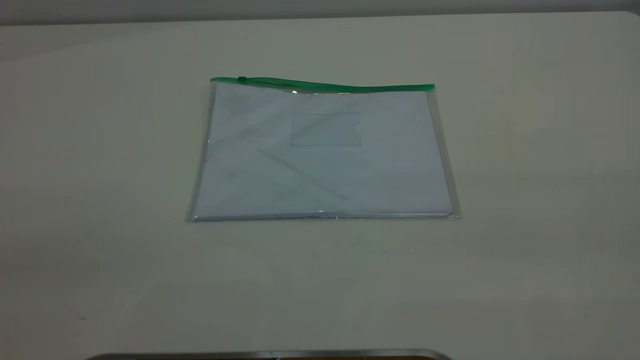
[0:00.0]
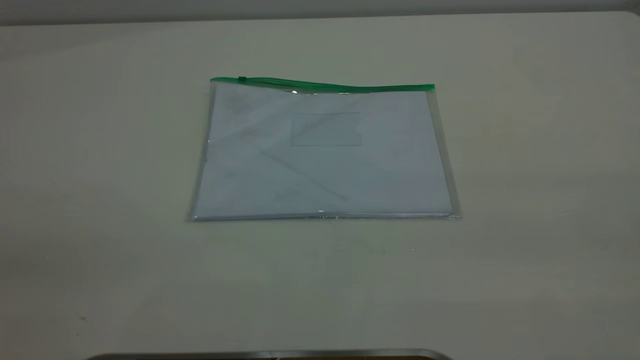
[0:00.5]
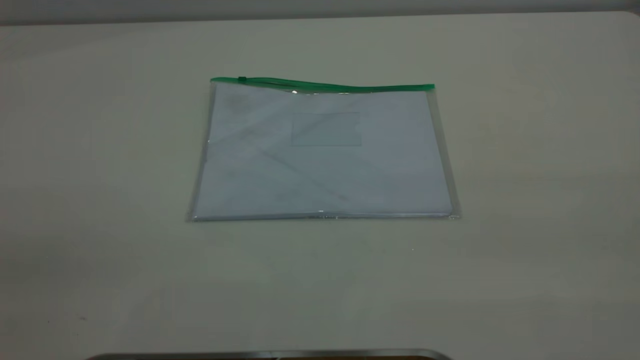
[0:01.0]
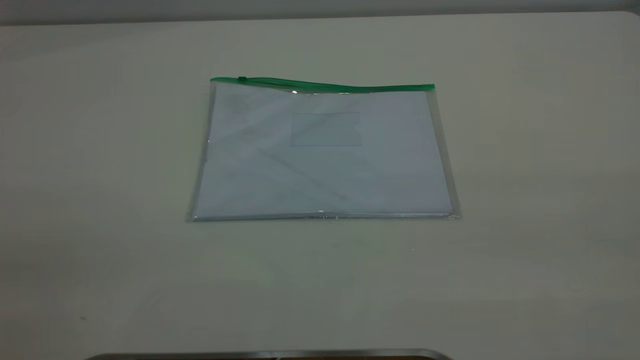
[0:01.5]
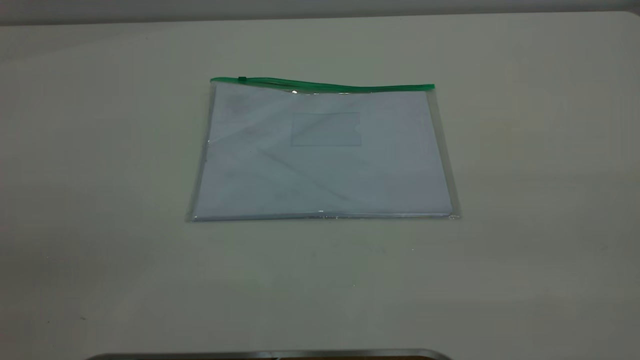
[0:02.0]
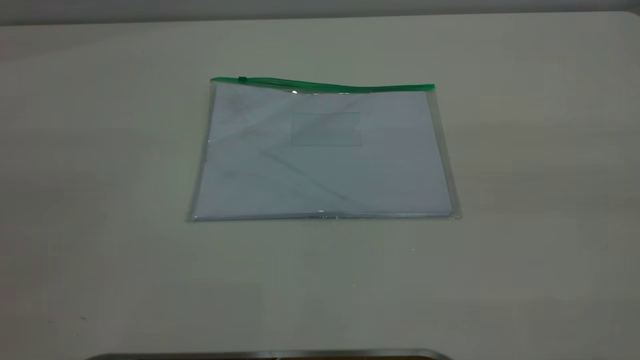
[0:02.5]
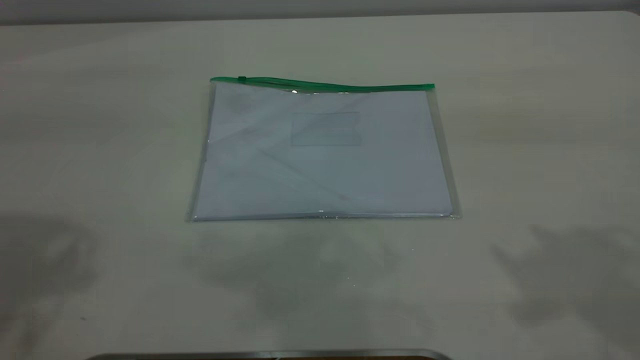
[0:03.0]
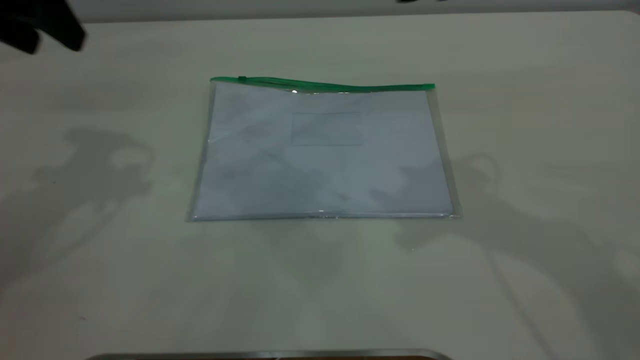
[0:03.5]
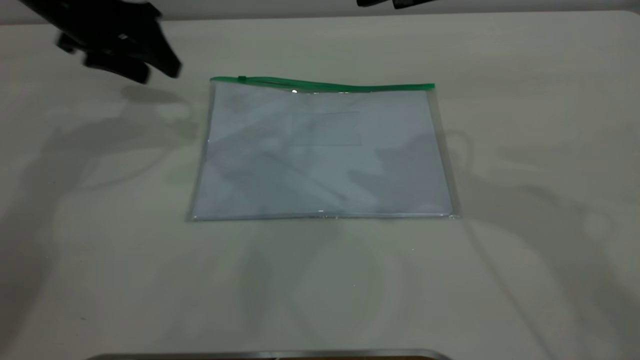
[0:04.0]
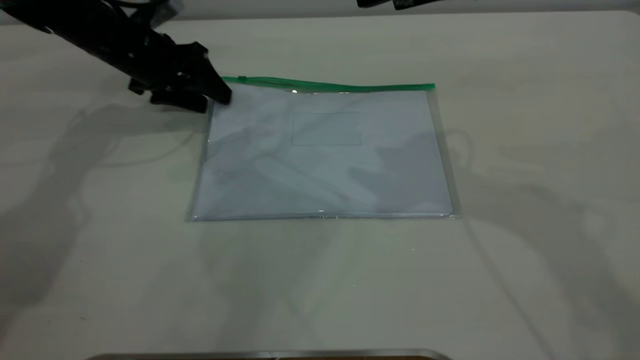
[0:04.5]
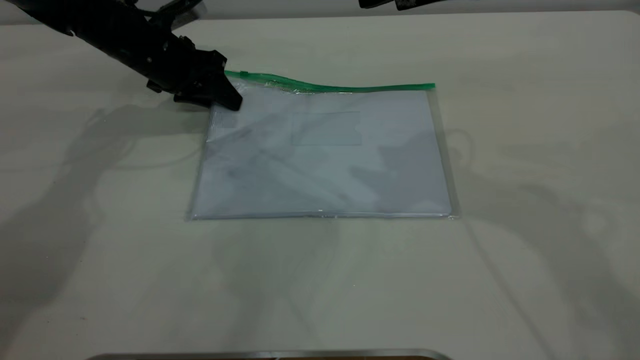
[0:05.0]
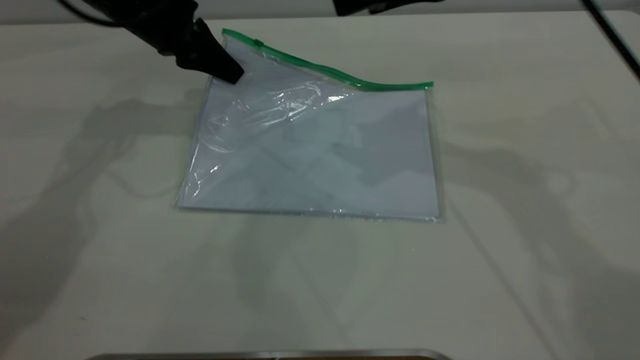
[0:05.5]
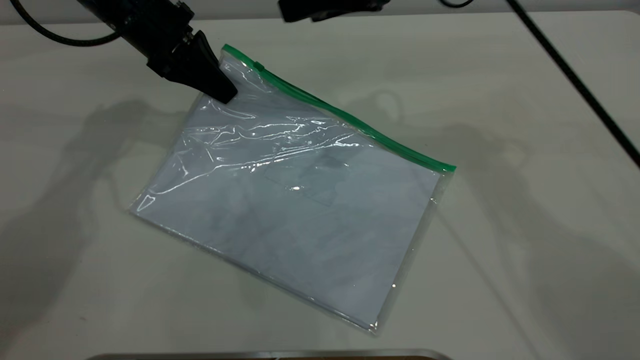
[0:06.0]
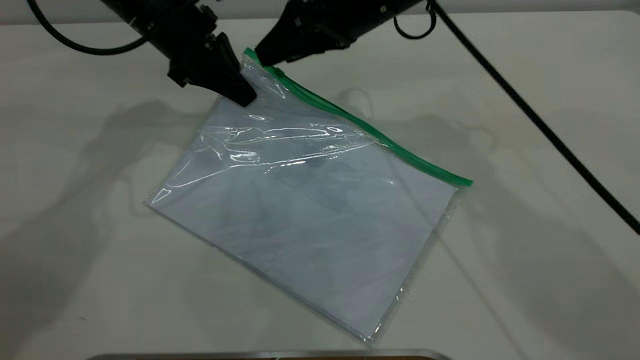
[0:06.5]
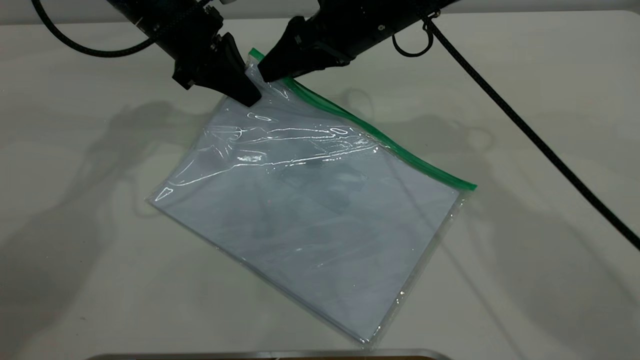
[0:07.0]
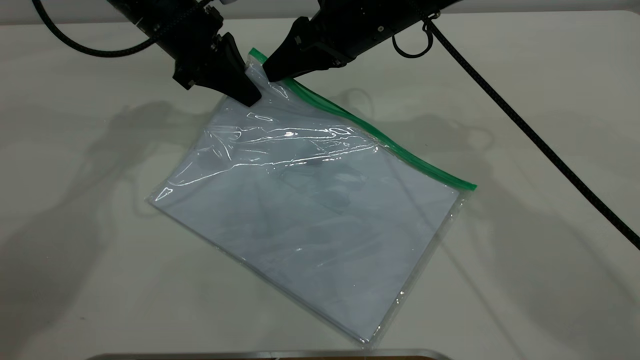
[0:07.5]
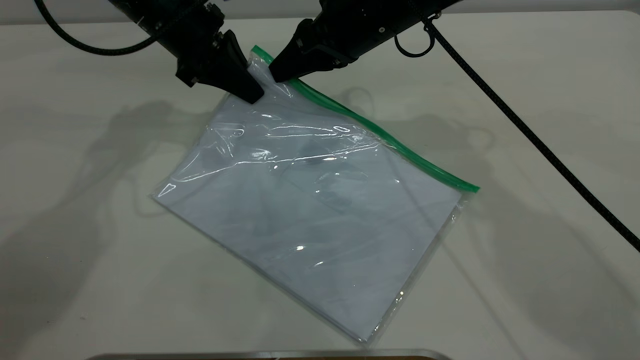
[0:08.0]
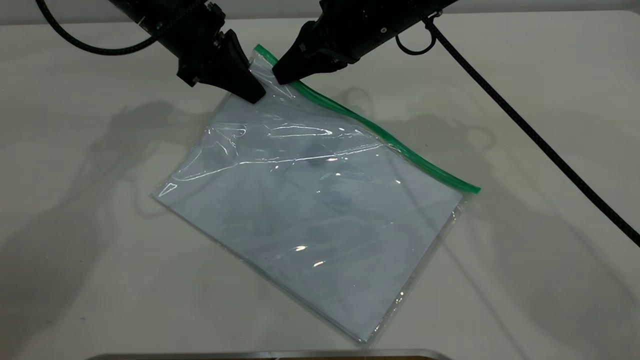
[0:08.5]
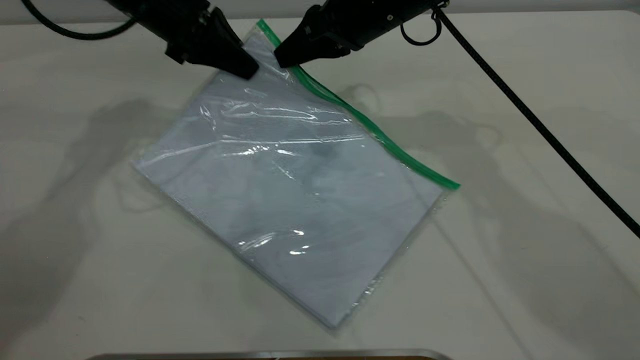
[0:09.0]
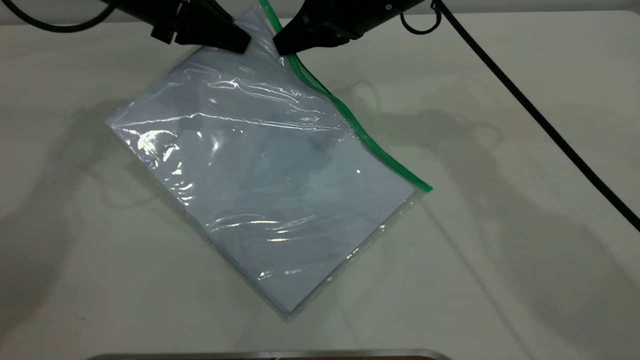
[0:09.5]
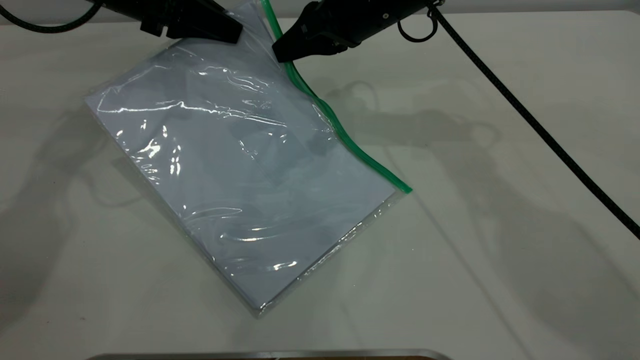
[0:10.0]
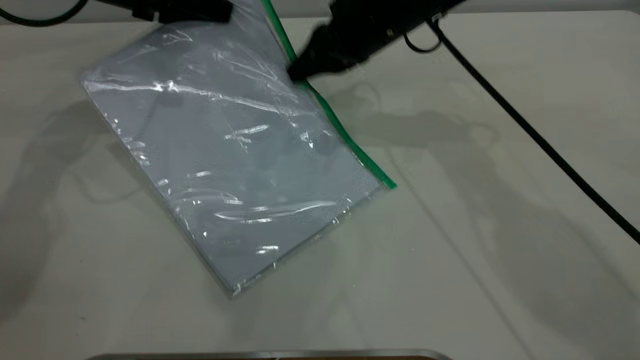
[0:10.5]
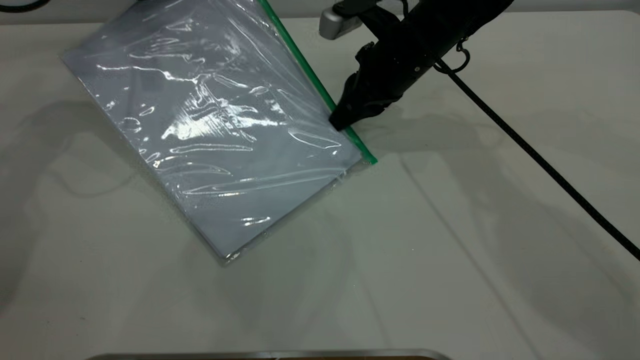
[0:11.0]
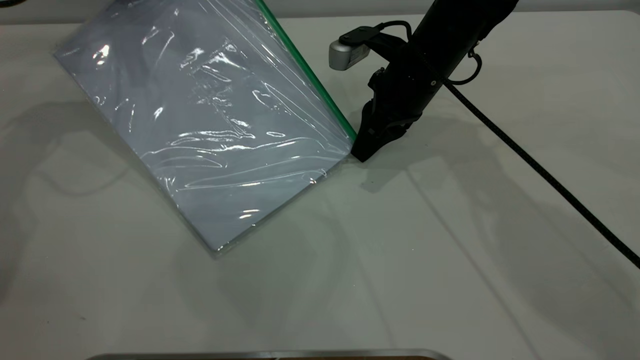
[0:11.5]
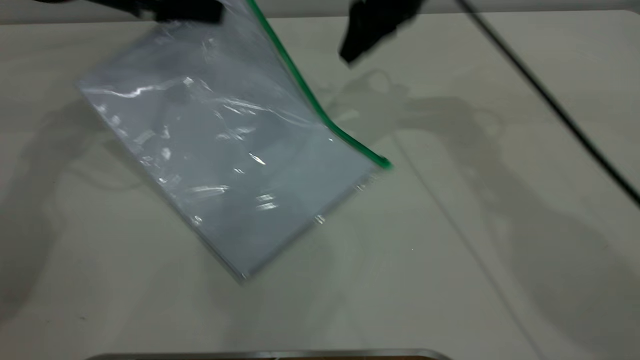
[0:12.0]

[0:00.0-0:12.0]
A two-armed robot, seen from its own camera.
Step, 0:00.0 to 0:05.0: Pick up the transparent plastic bag with the left gripper.
Step, 0:06.0 to 0:11.5: Pulling up the zipper on the transparent plastic bag with the right gripper to close it.
0:00.0 to 0:02.0: Neither gripper changes place.
0:02.0 to 0:04.0: The left gripper shifts some 50 cm forward and downward.
0:04.0 to 0:06.0: The right gripper goes some 10 cm forward, to the left and downward; the left gripper goes some 5 cm to the right, and closes.
0:06.0 to 0:08.0: The right gripper heads downward, covering roughly 5 cm, and closes.
0:08.0 to 0:10.0: The left gripper goes approximately 5 cm to the left.
0:10.0 to 0:12.0: The right gripper is displaced upward by about 5 cm, and opens up.

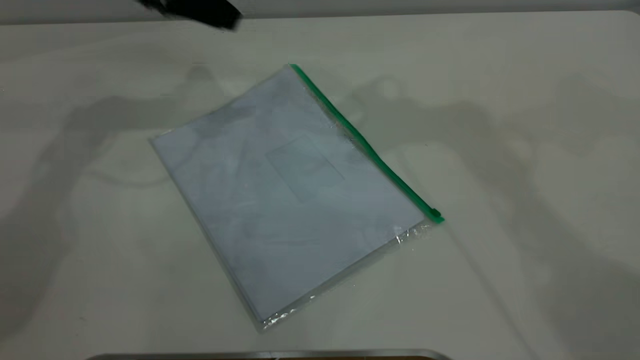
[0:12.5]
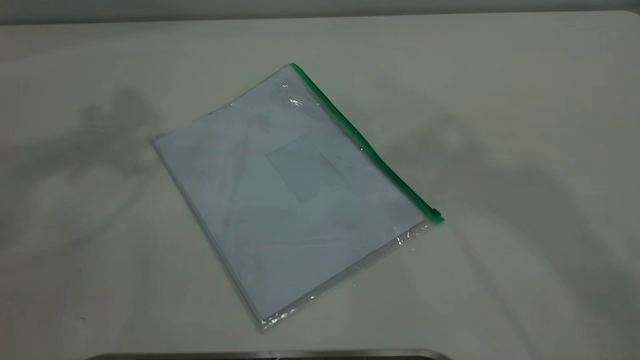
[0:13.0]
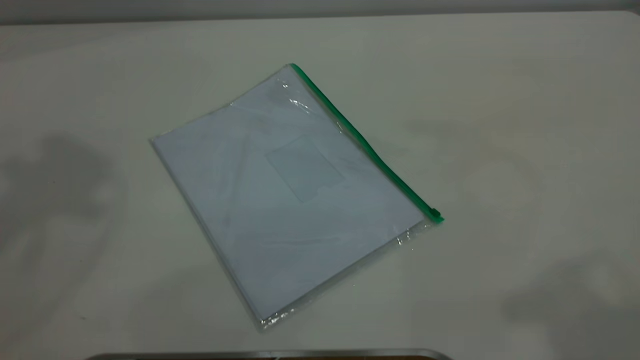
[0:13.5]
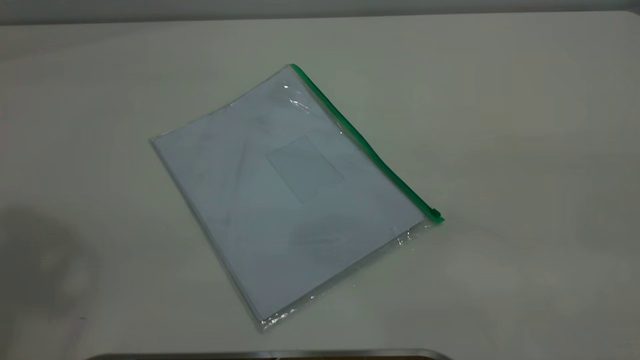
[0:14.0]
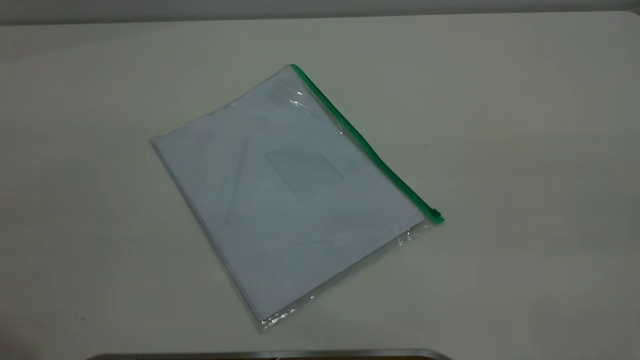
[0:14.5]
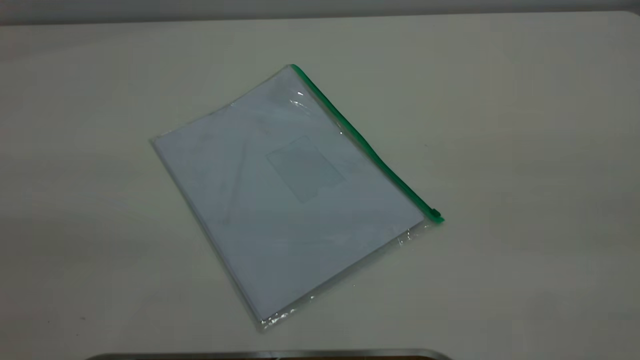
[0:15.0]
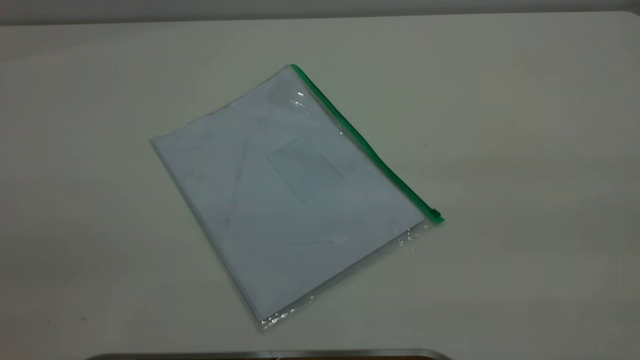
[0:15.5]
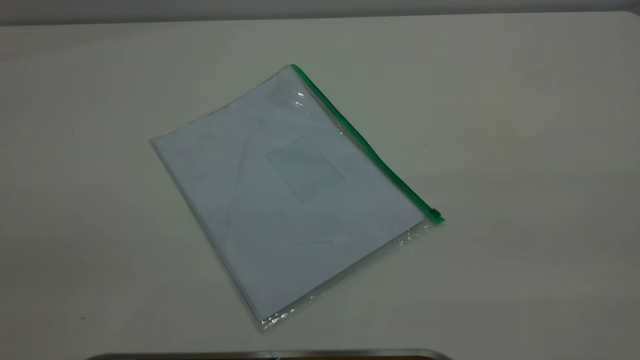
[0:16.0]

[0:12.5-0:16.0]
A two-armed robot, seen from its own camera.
0:12.5 to 0:14.5: The left gripper shifts about 40 cm backward and upward.
